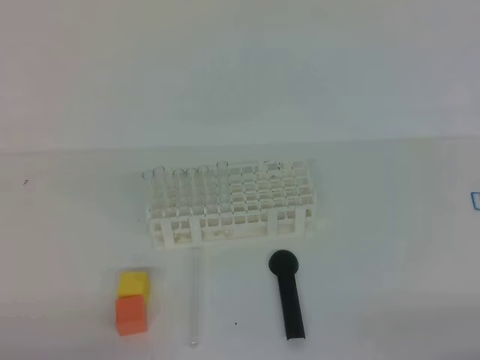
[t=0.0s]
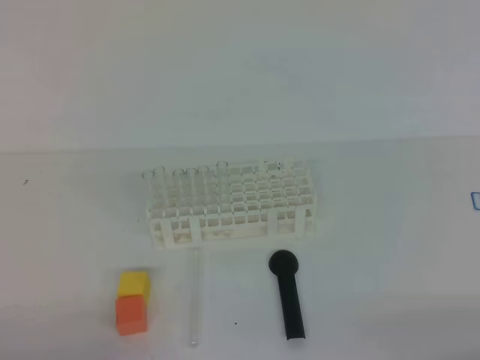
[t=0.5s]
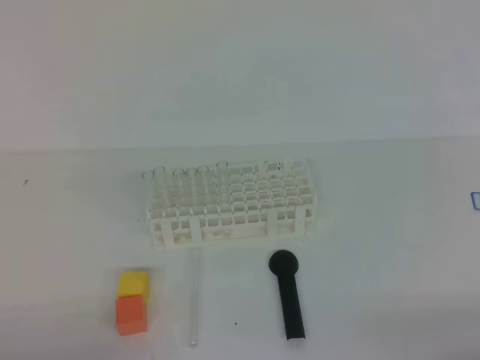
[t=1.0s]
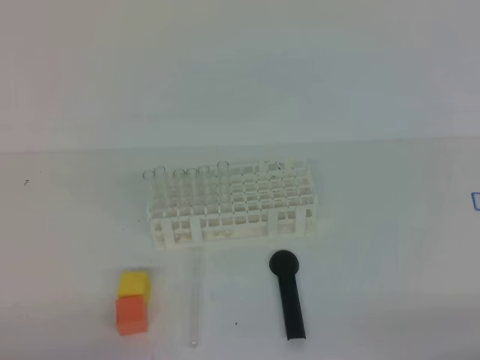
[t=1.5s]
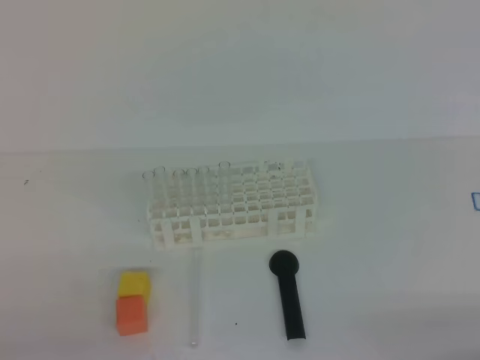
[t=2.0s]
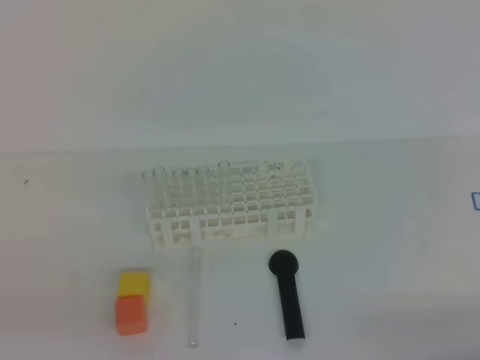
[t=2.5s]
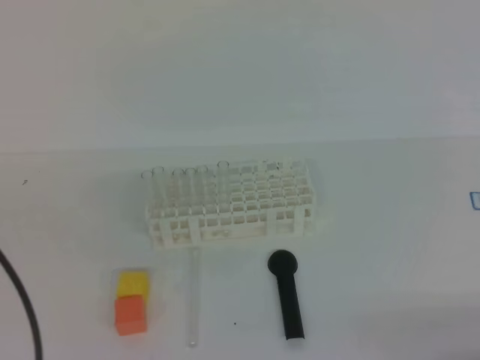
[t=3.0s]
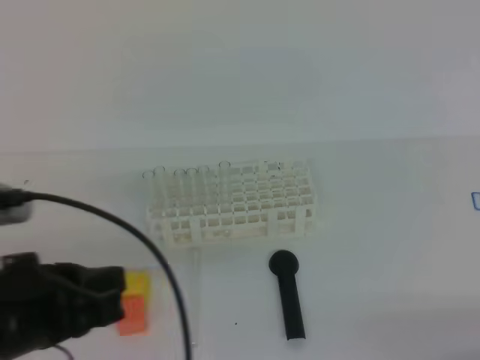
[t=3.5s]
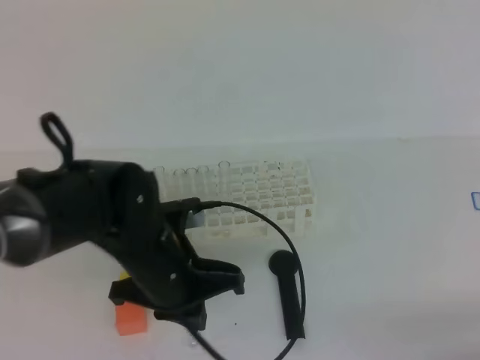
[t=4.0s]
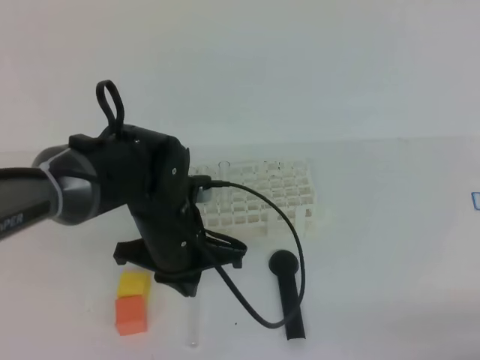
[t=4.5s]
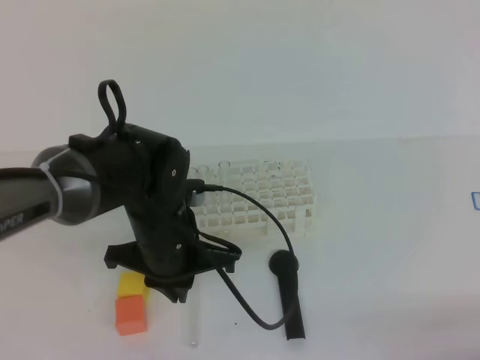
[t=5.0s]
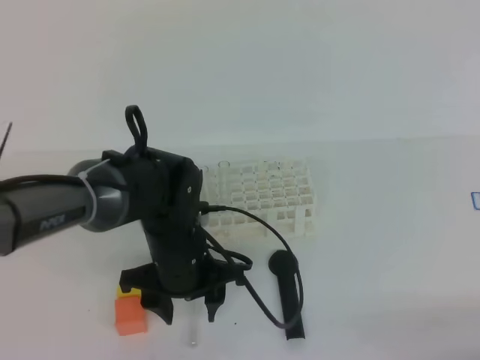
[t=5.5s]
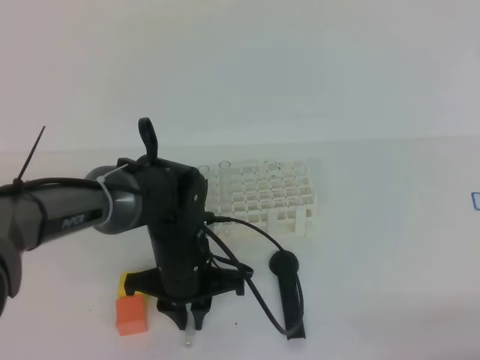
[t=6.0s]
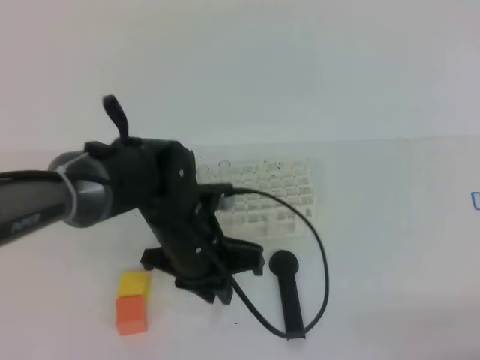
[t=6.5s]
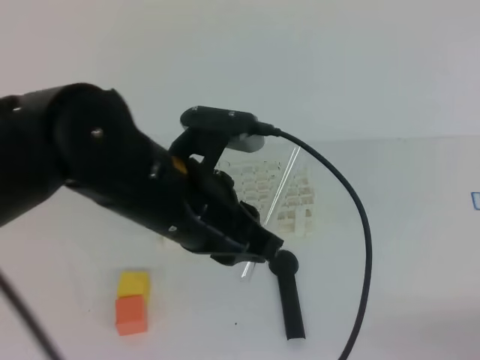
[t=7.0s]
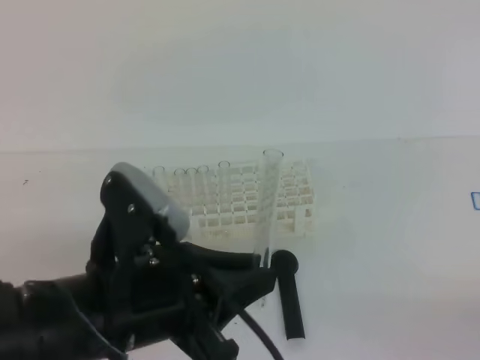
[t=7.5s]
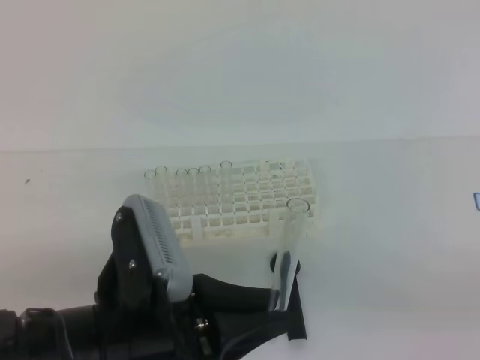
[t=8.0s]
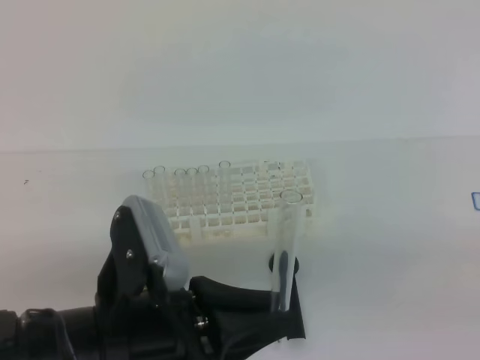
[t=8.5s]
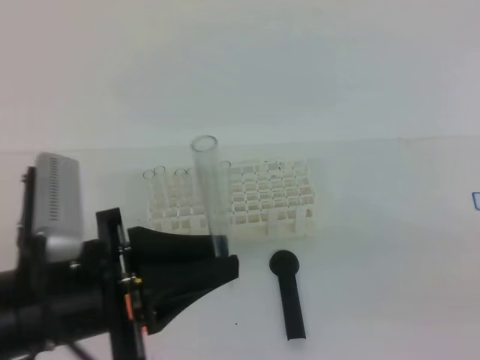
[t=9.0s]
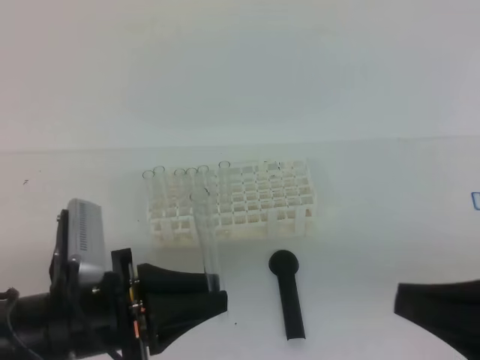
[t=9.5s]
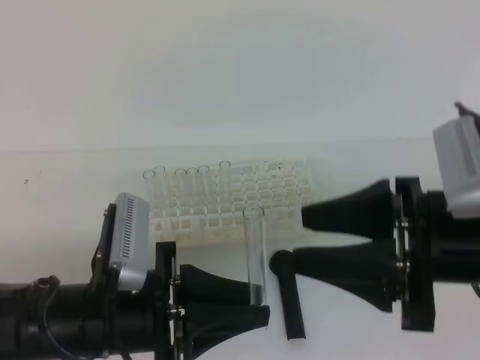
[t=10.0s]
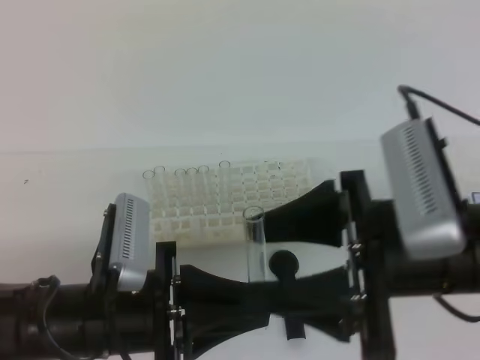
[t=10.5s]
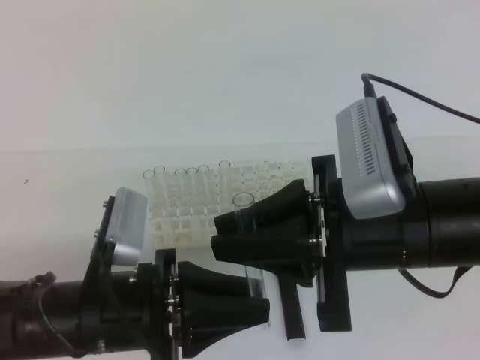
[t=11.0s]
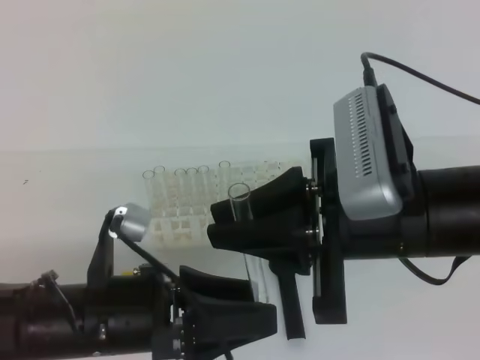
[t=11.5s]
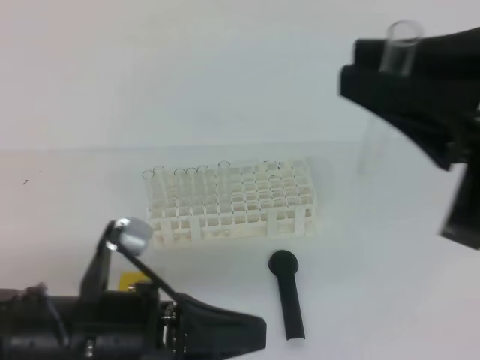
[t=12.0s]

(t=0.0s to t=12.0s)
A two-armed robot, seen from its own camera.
t=2.0s - t=4.0s: The left gripper shifts some 25 cm forward and to the right.
t=4.0s - t=6.0s: The left gripper heads downward and forward, covering roughly 10 cm, and opens up.
t=6.0s - t=8.0s: The right gripper goes roughly 5 cm upward. Meanwhile the left gripper travels backward and upward by approximately 20 cm.
t=8.0s - t=10.0s: The left gripper changes place by approximately 5 cm. The right gripper heads forward and to the left, covering approximately 20 cm, and opens.
t=10.0s - t=12.0s: The right gripper shifts roughly 10 cm upward, and closes, while the left gripper opens, then closes once more.

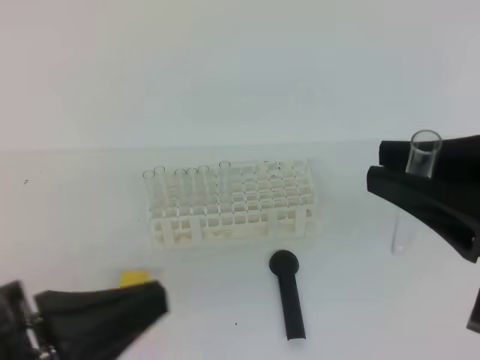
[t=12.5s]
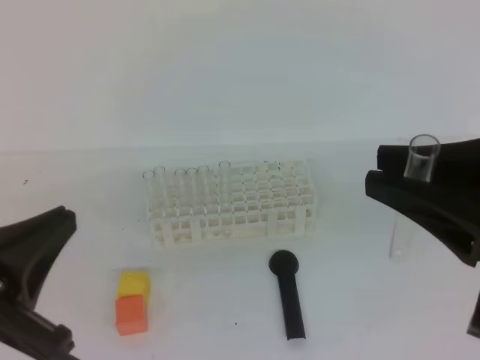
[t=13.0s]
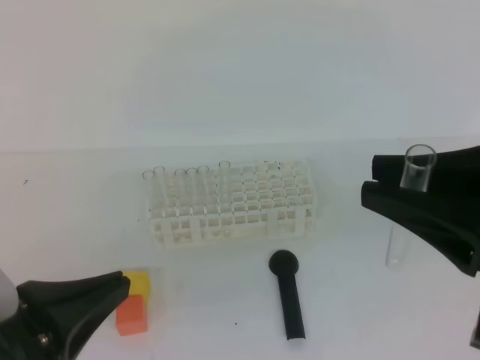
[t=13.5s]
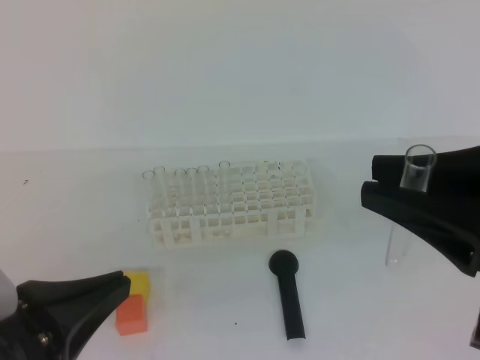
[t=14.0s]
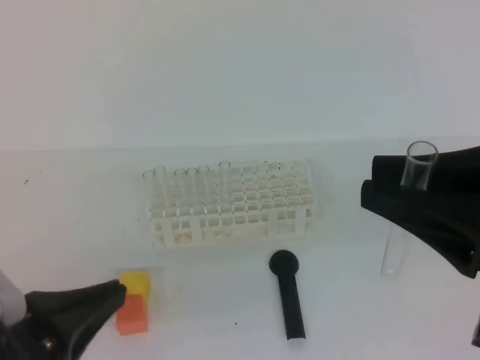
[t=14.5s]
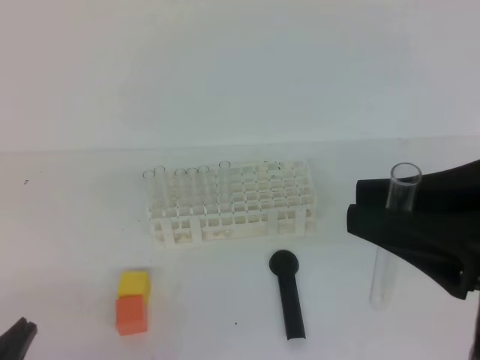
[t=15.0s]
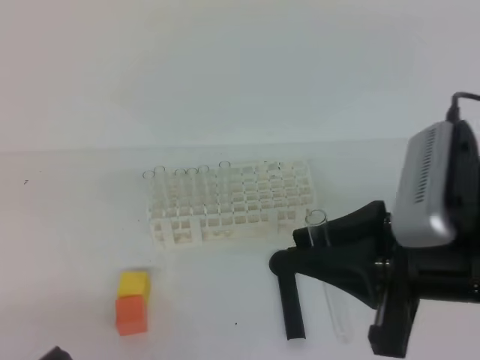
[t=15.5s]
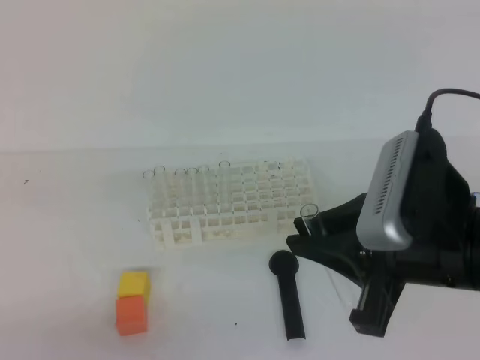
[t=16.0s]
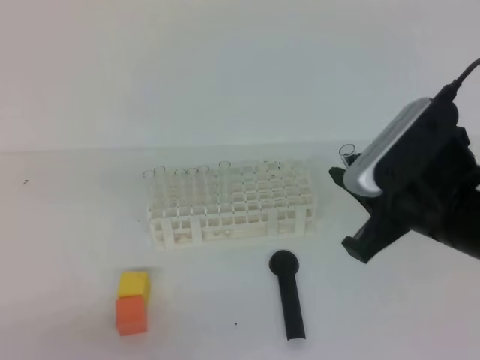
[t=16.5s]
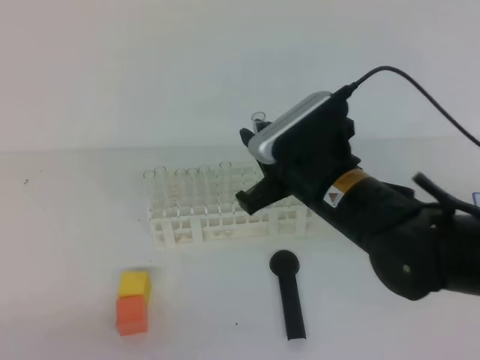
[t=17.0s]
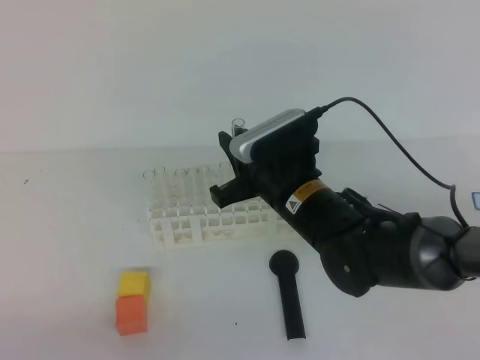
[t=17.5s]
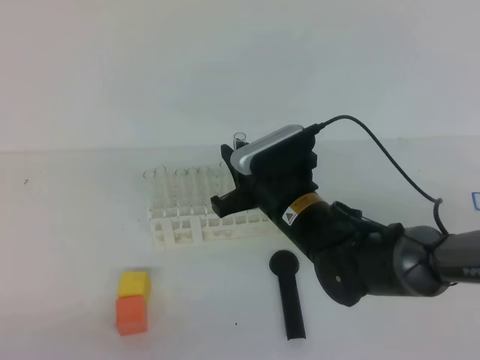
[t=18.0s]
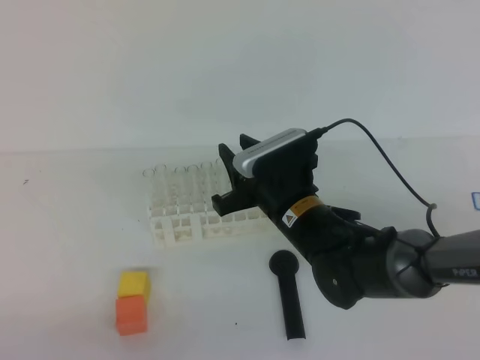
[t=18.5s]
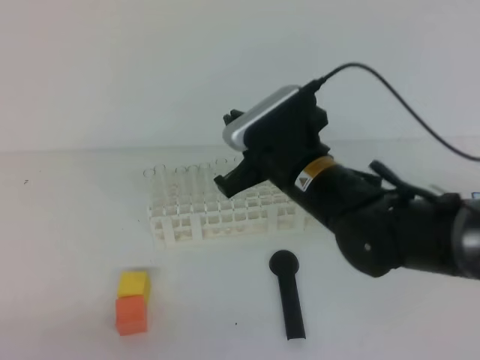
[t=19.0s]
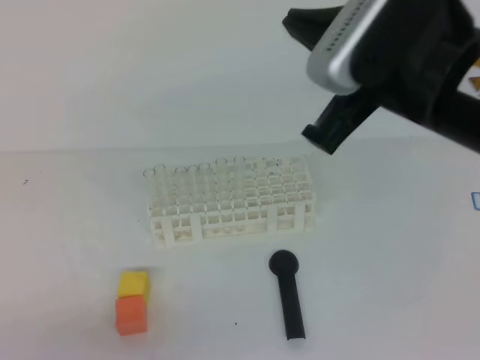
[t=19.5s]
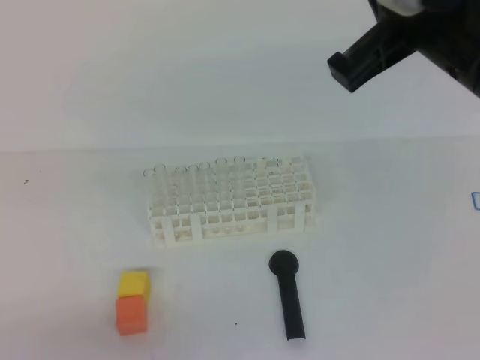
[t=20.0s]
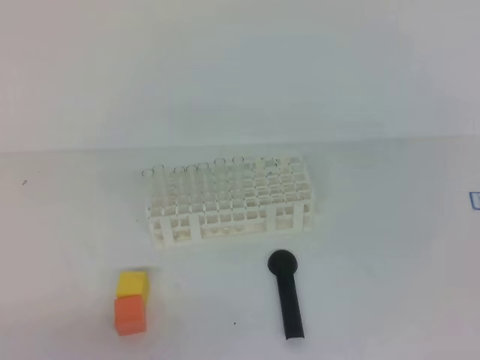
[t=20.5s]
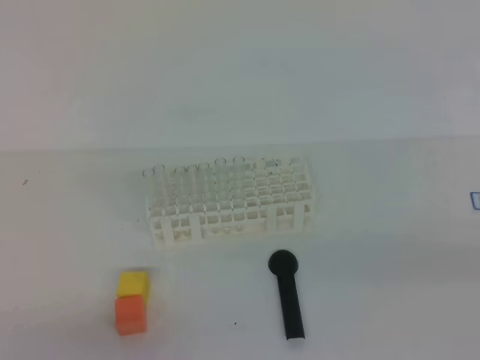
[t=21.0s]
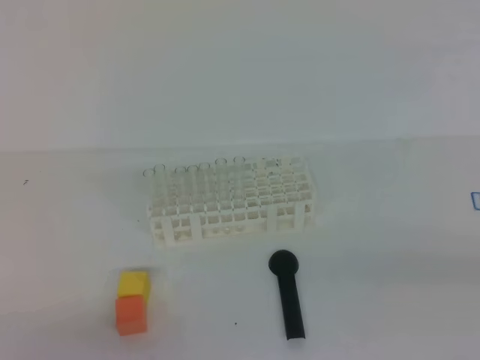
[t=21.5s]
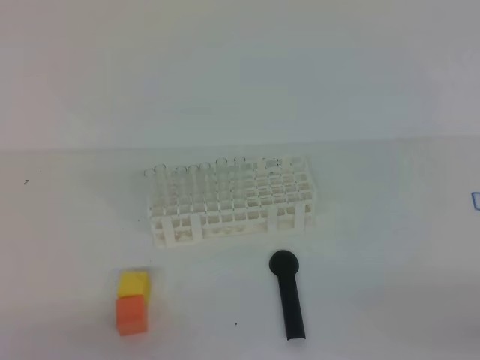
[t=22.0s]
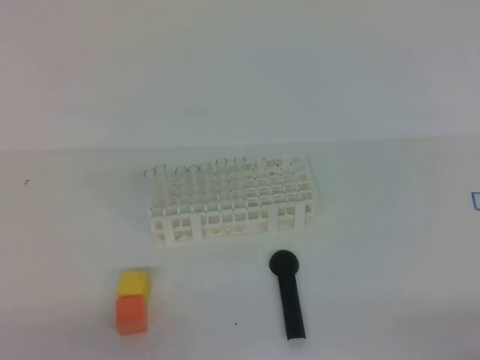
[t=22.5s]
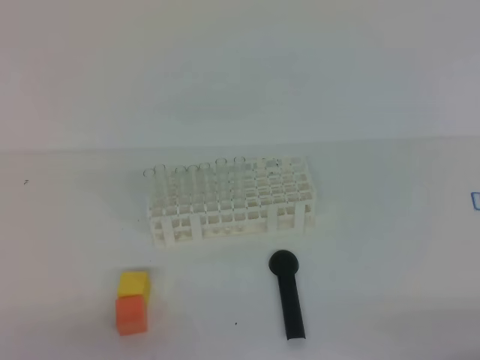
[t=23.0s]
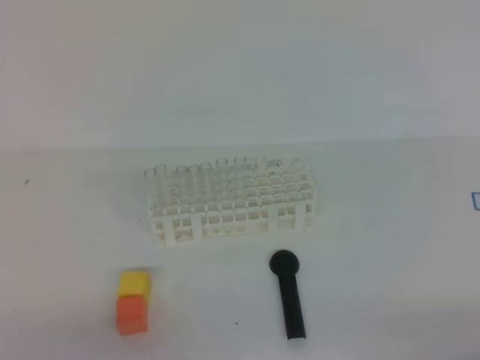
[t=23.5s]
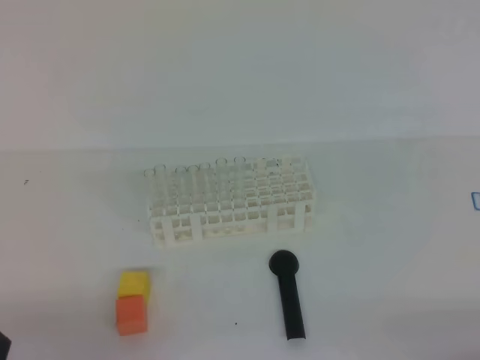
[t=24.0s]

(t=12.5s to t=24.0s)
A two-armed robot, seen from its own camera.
t=14.5s - t=16.5s: The left gripper moves downward and backward, approximately 10 cm; the right gripper shifts some 15 cm forward and downward.
t=16.5s - t=18.5s: The right gripper heads downward, to the left and forward, covering some 20 cm.
t=18.5s - t=20.0s: The right gripper moves upward and backward, approximately 30 cm, and closes.
t=20.0s - t=22.0s: The right gripper shifts about 35 cm downward, to the right and backward.

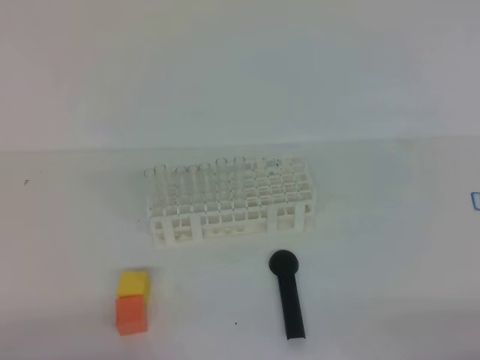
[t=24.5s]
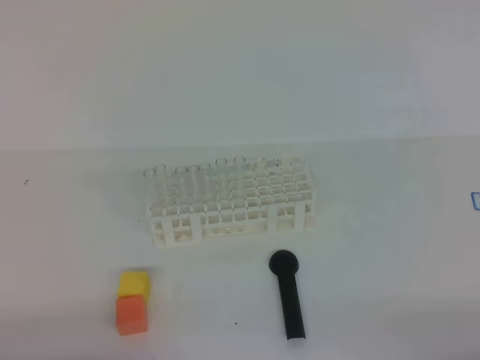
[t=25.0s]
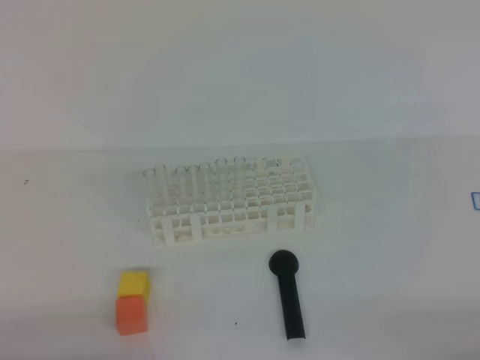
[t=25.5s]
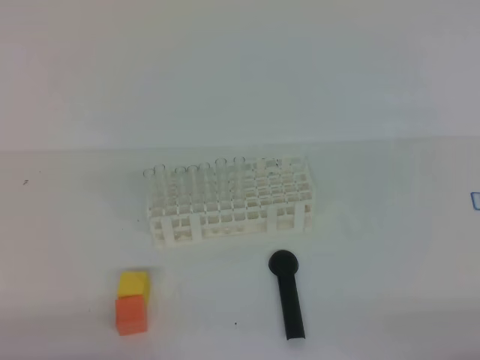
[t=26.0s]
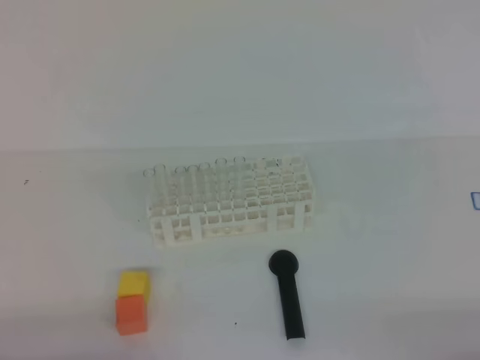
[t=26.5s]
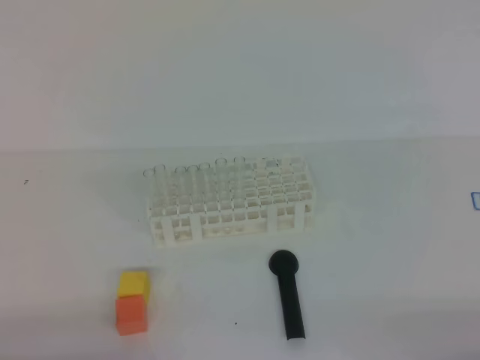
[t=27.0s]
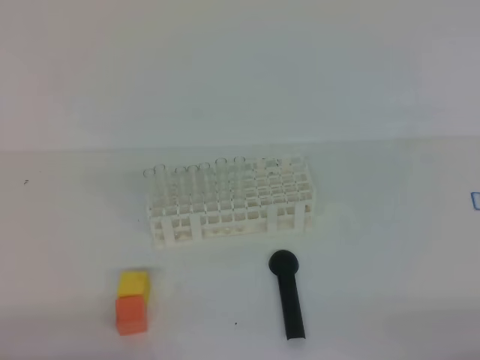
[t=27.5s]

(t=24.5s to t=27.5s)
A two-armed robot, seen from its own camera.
t=26.0s - t=27.5s: The two grippers keep their place.
